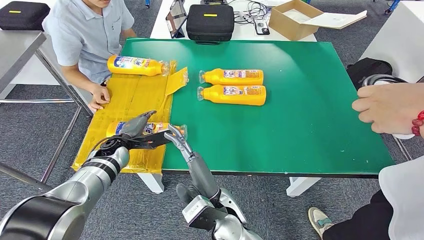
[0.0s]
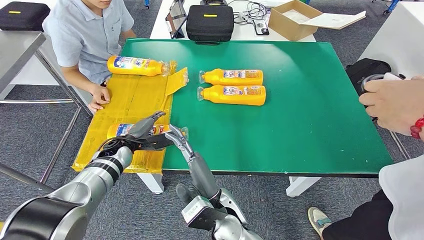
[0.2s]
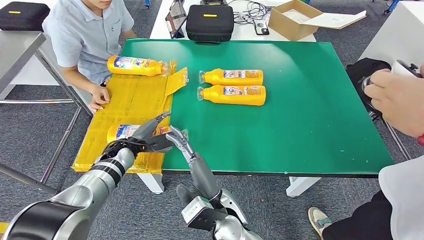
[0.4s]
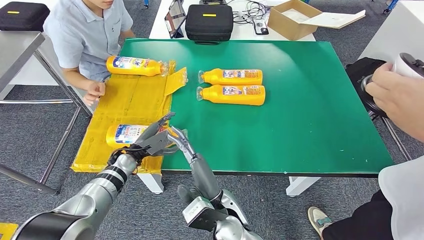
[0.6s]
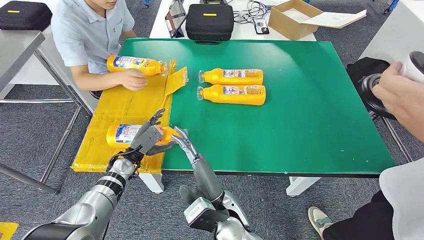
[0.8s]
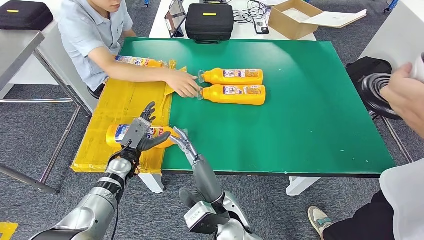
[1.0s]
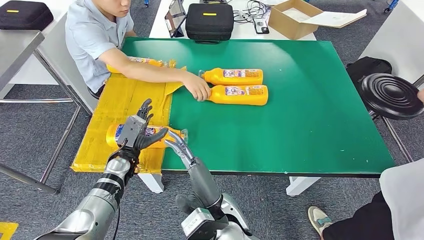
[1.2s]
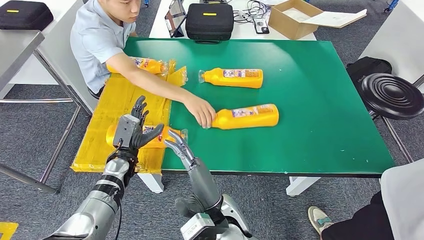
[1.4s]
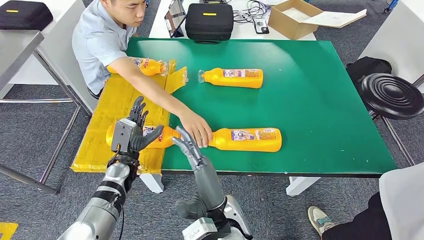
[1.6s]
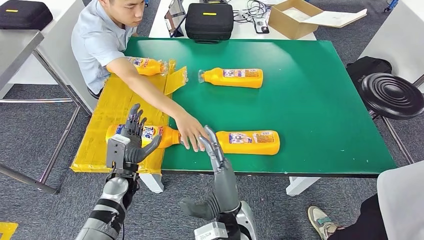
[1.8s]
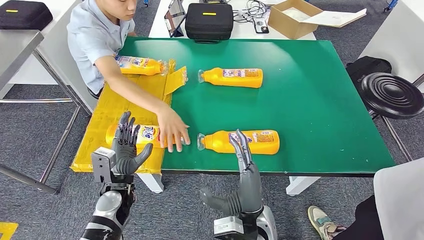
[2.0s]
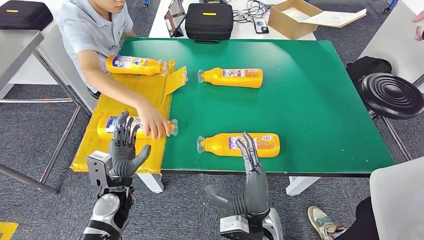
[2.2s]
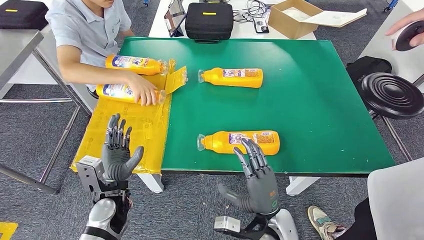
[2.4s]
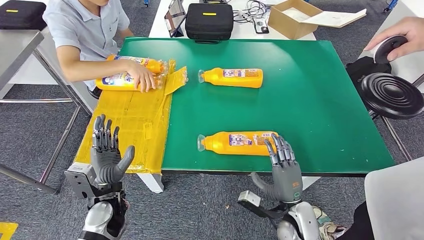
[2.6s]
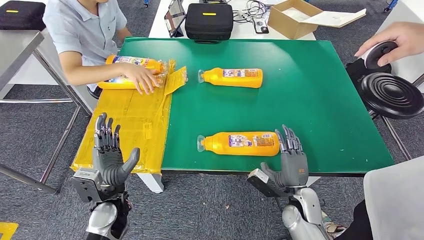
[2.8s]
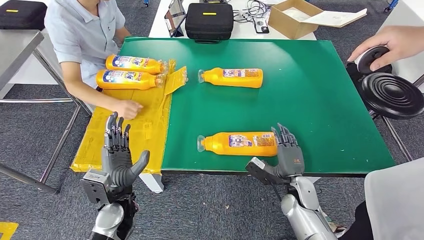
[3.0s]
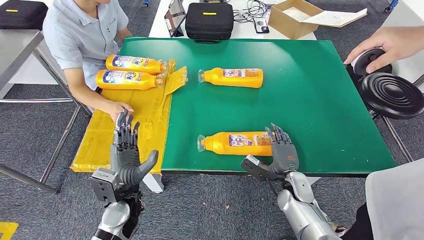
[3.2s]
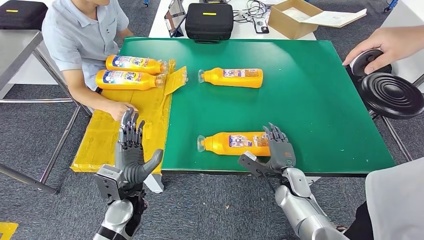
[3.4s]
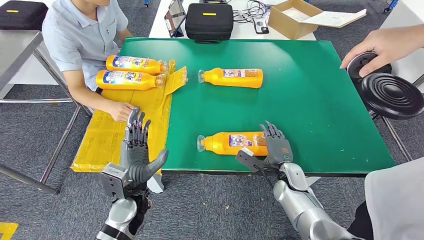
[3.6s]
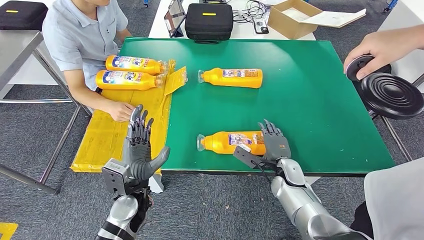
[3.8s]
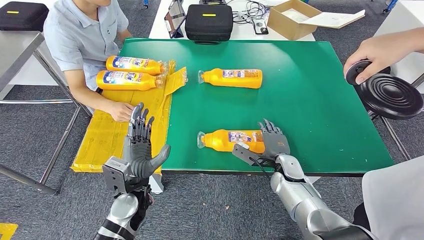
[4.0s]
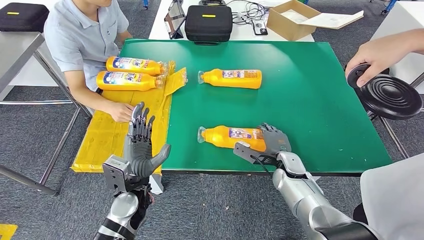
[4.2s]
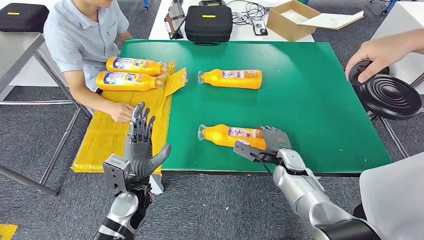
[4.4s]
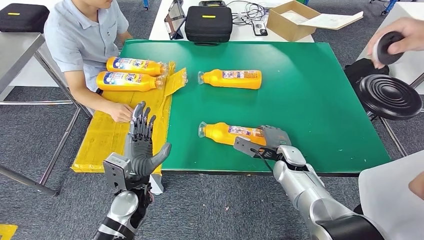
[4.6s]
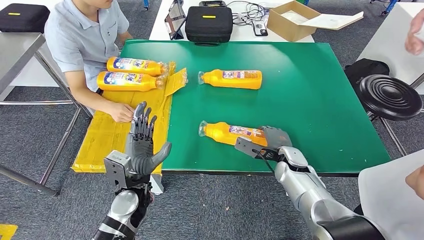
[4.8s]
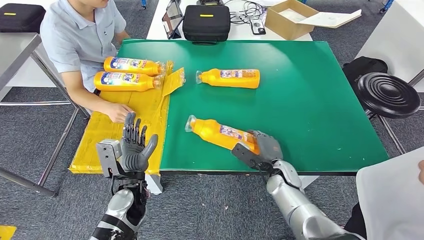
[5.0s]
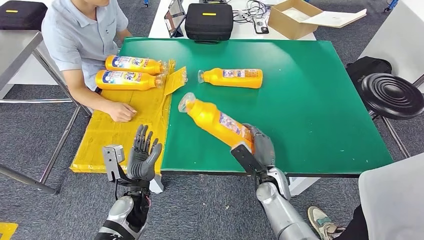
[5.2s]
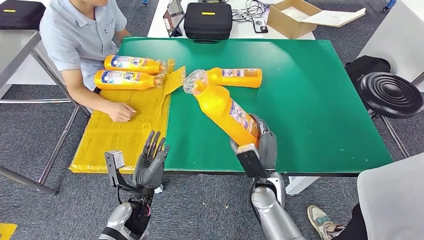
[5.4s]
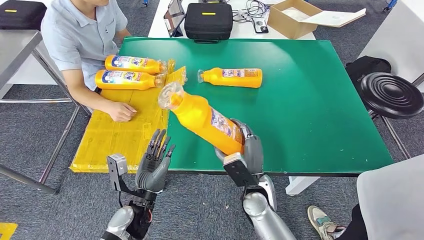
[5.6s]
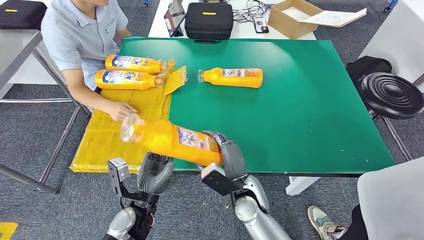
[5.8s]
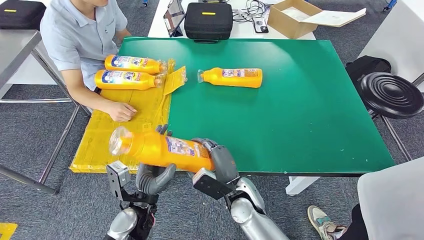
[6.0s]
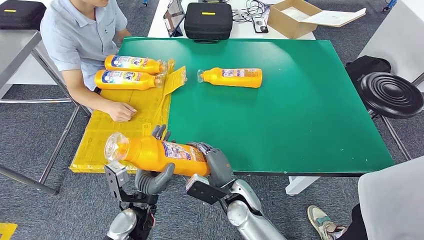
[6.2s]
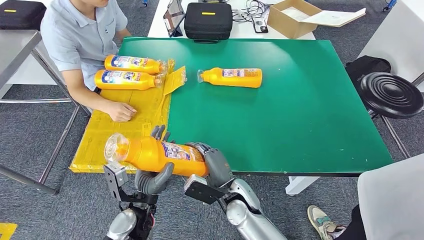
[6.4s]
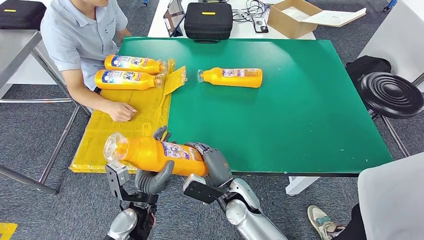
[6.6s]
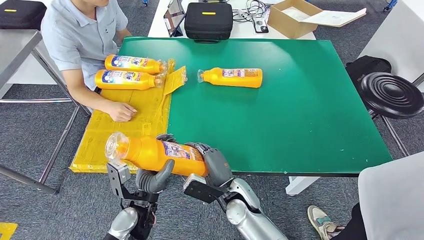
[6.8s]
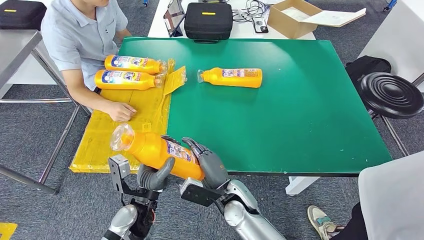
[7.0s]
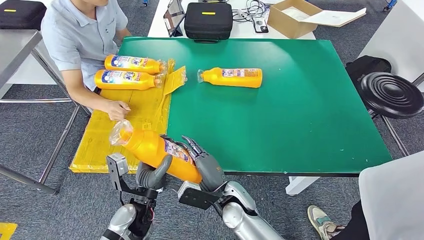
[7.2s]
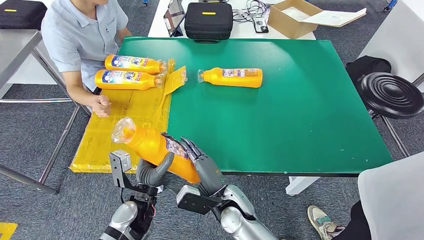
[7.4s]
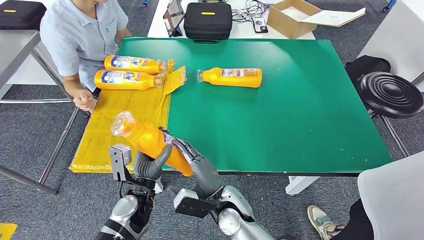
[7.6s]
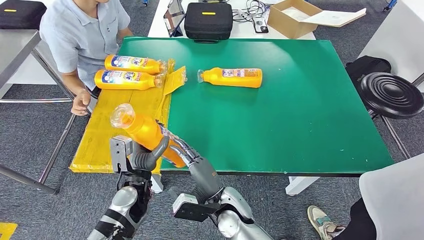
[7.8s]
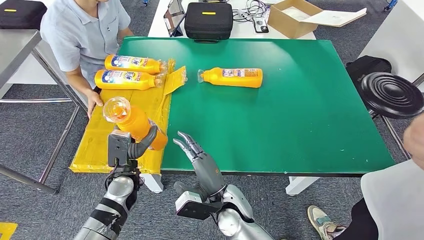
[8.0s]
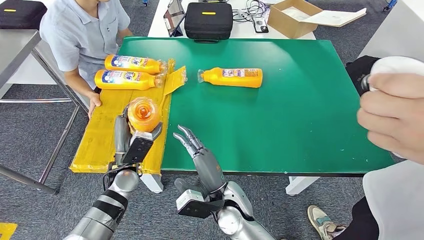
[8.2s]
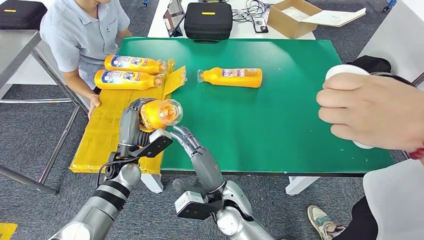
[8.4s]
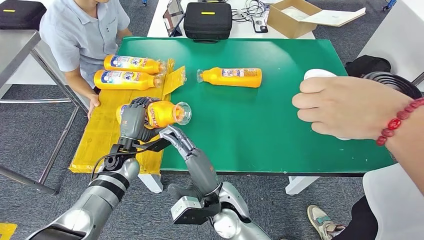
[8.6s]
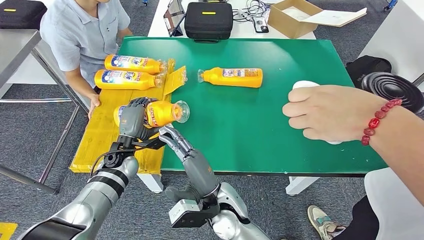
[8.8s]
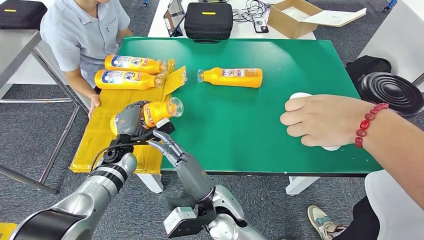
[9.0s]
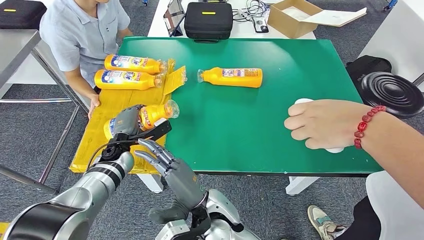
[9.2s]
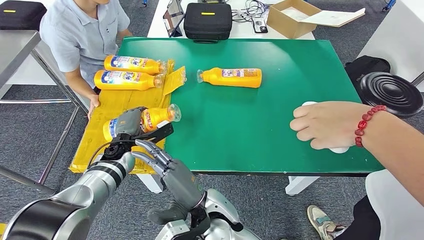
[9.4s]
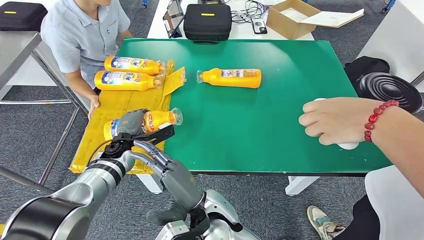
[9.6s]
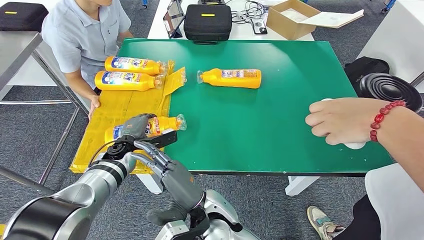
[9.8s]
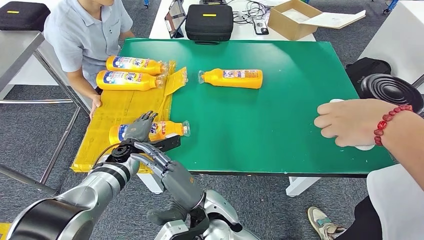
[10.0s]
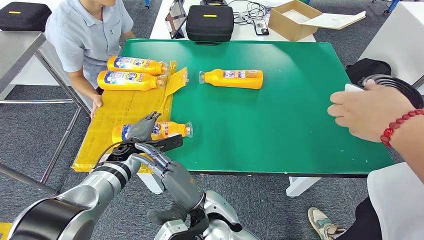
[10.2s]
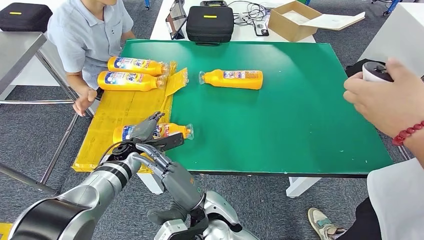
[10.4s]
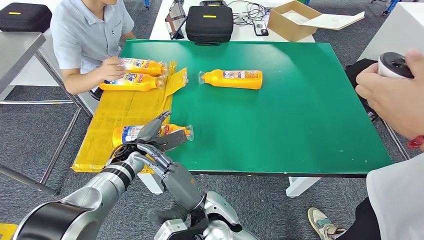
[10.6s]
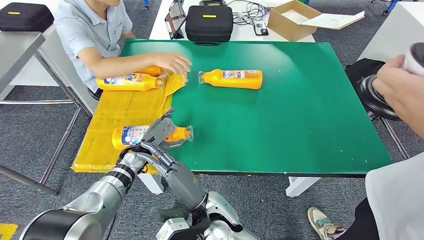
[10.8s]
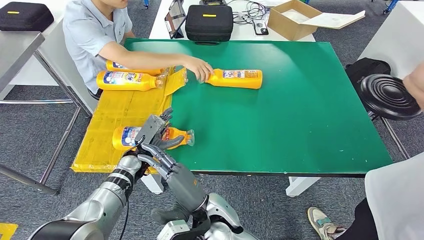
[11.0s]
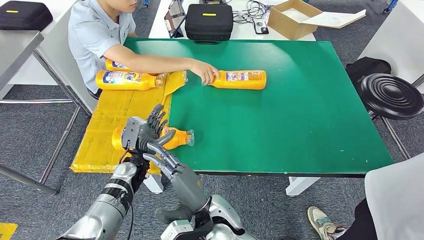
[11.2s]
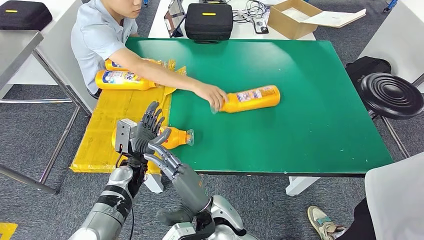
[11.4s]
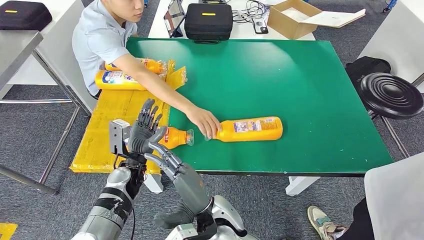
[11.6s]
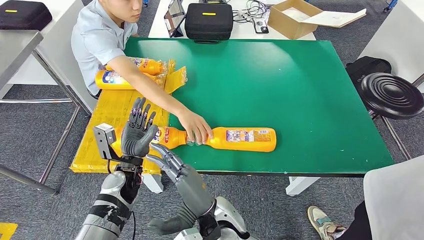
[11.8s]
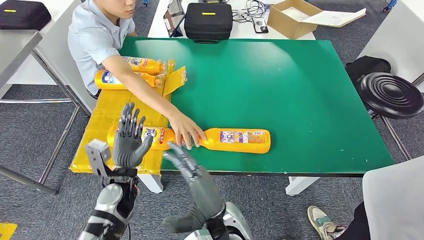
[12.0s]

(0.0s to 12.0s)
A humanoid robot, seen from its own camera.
Step, 3.4s - 5.8s: Pick up the fast-moving consumer goods bottle from the table.
Step, 6.4s - 11.8s: Flip the fast-moving consumer goods bottle to the front side.
6.0s - 7.6s: The hands stay close to where they were, moving slightly.

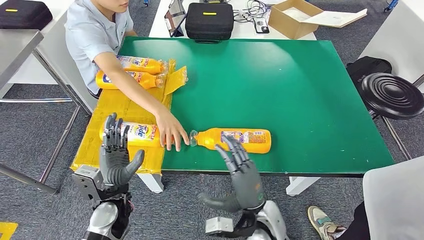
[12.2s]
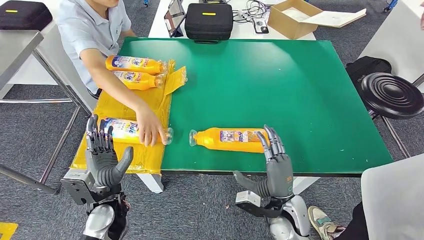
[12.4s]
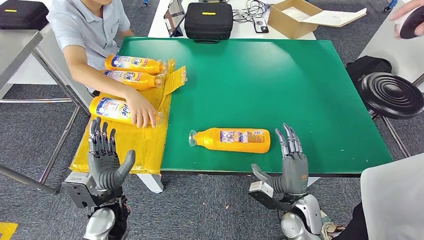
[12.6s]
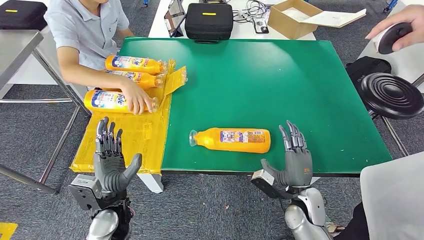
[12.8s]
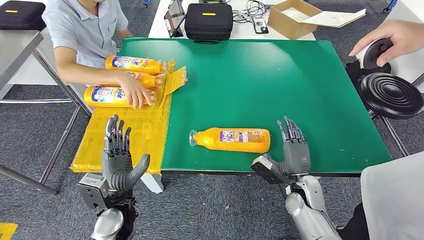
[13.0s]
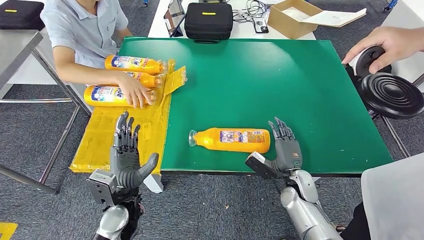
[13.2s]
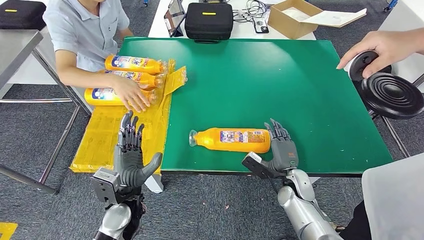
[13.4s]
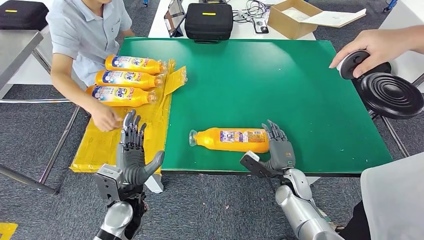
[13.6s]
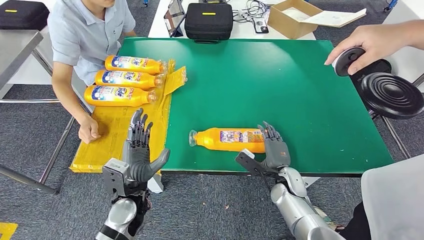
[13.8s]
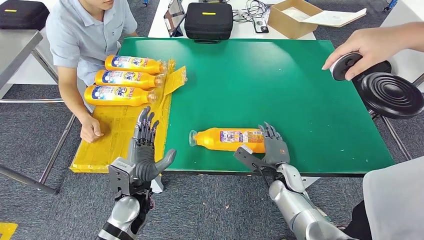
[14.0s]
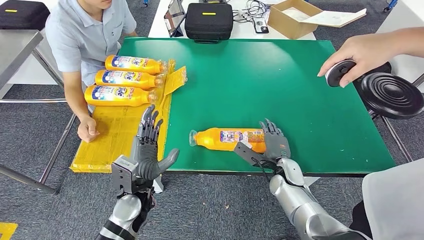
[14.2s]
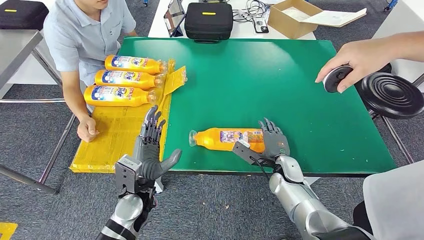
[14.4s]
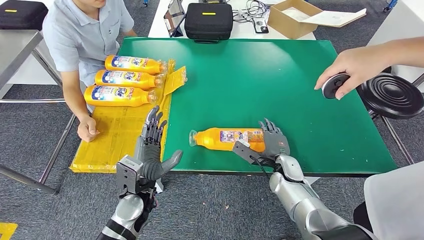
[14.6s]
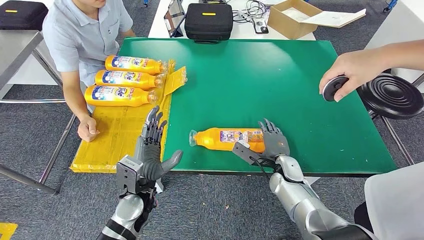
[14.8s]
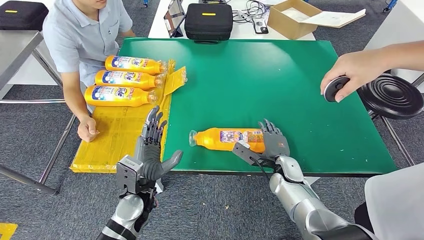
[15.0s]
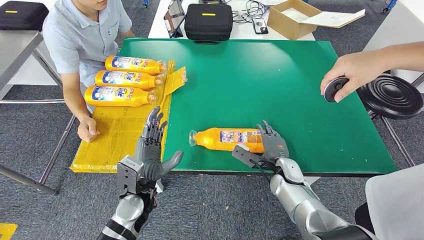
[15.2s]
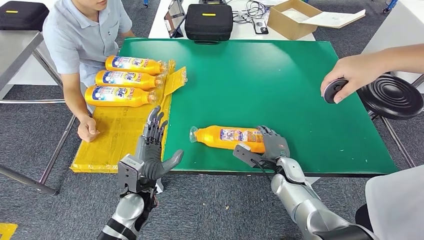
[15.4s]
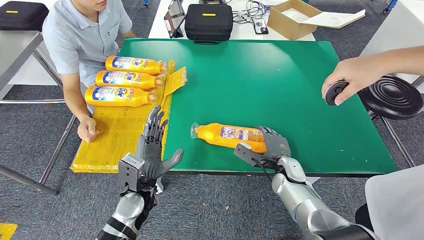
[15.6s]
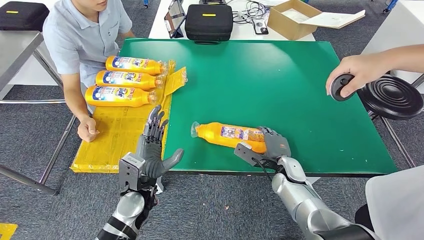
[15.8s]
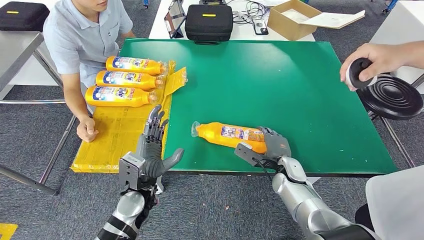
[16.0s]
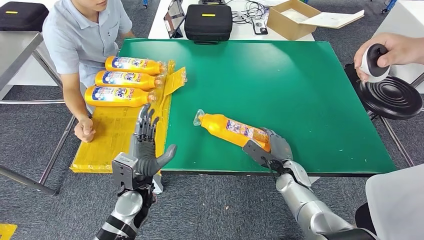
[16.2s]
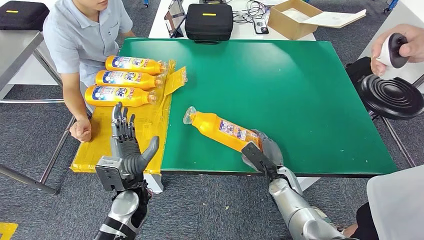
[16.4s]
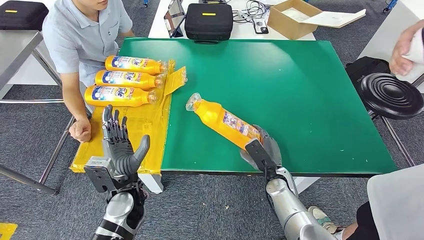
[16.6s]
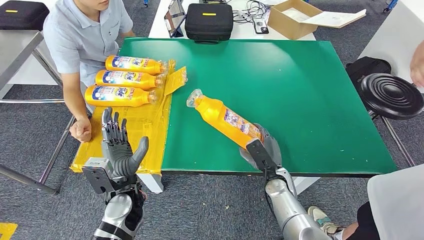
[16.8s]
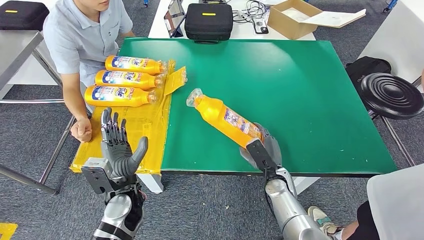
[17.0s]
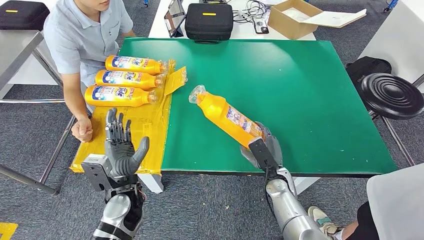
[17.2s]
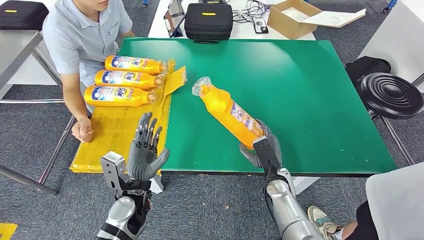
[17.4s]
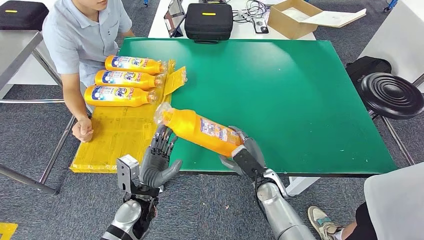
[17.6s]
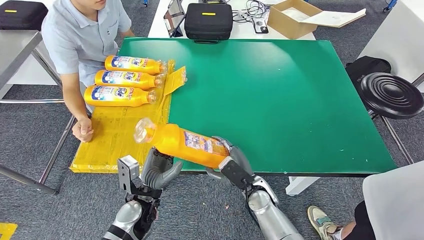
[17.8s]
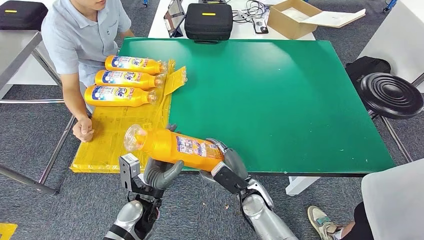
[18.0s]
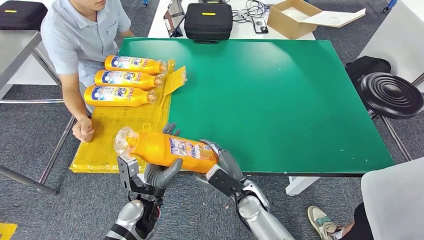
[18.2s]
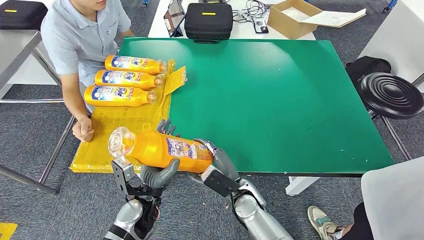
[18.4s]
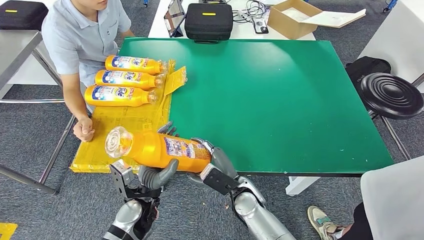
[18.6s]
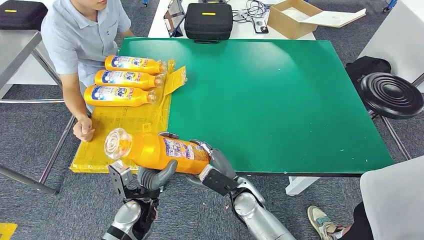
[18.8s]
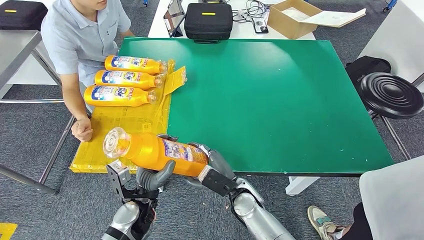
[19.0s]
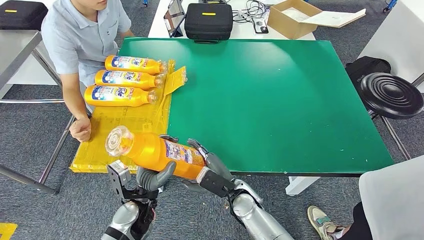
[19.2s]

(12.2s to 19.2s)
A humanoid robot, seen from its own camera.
Step, 15.2s - 17.4s: Pick up the fast-moving consumer goods bottle from the table.
16.4s - 17.8s: The right hand is displaced to the left by some 10 cm.
17.8s - 19.2s: The right hand heads to the left, covering approximately 5 cm.
